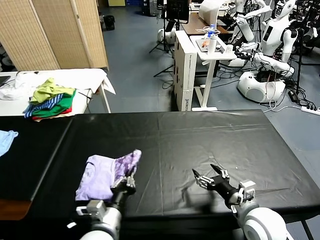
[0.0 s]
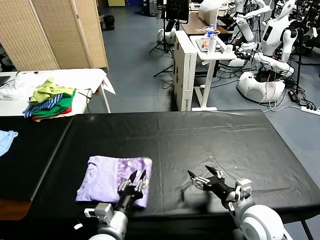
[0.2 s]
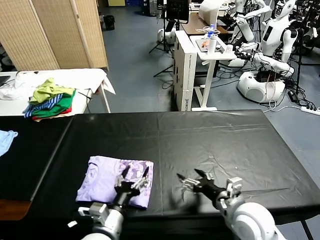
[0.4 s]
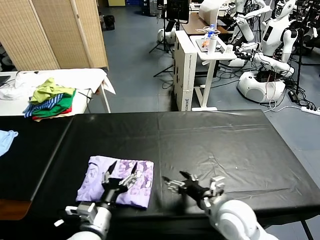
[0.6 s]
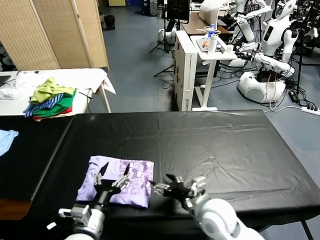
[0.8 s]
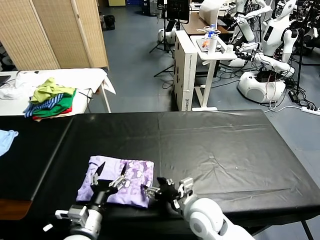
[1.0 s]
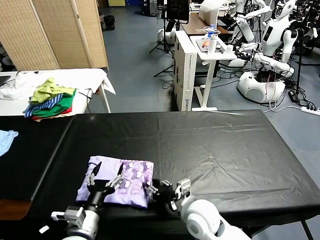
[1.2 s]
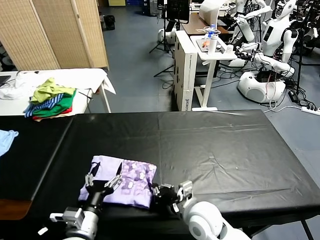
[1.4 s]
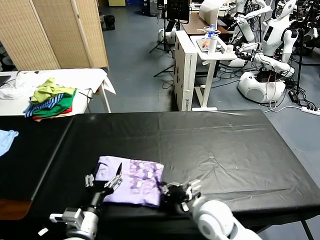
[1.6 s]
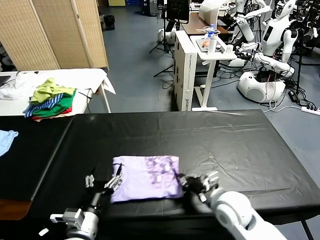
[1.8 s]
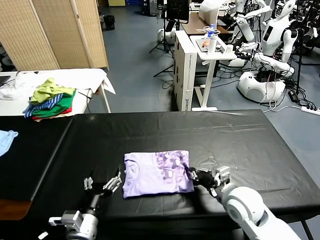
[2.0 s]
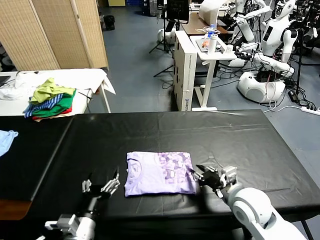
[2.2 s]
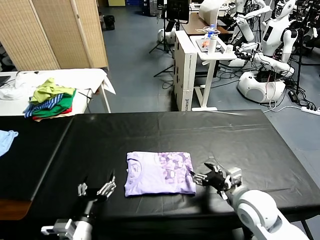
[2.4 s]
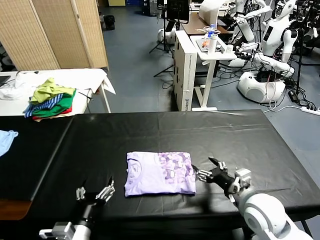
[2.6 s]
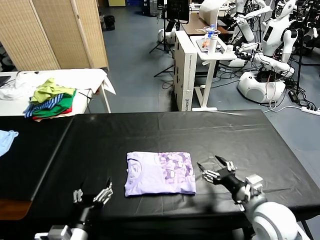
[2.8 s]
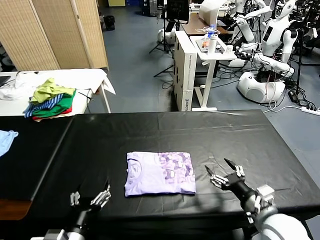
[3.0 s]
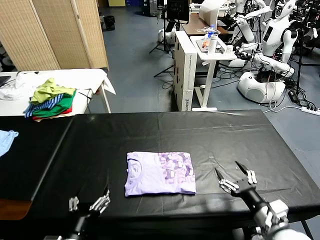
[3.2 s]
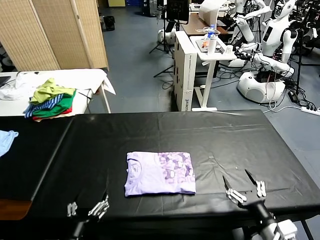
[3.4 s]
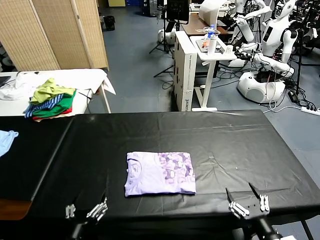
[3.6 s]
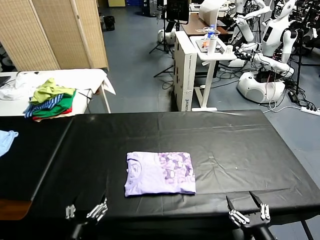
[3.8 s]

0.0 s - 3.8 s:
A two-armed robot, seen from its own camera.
Task of the whole recording: fold and organize the clothes.
Step, 0.6 s - 2.4 s: Drag the clothes to the center of the table.
0.0 s - 1.2 s: The left gripper opens up, while the right gripper travels to the left by roughly 15 cm.
1.2 s - 2.6 s: The right gripper moves to the right, approximately 15 cm, and closes and opens again.
2.6 s - 3.8 s: The left gripper moves backward, roughly 5 cm. Meanwhile the right gripper shifts approximately 20 cm backward.
